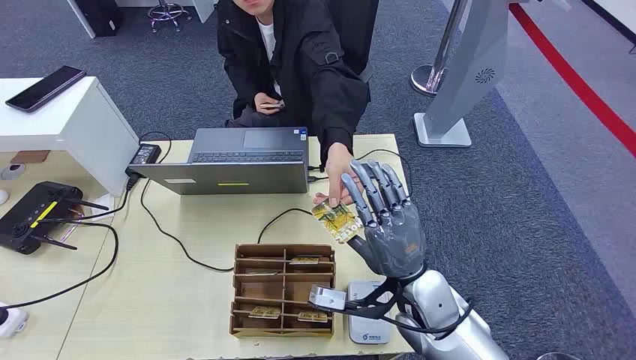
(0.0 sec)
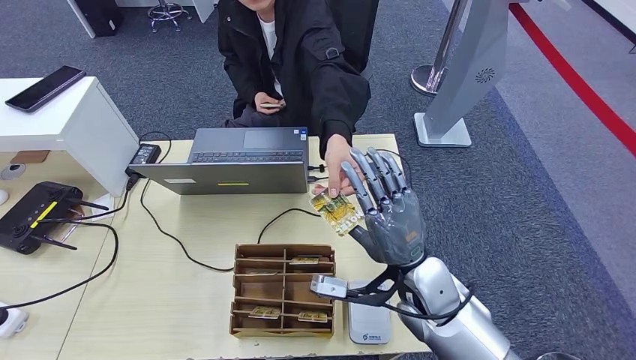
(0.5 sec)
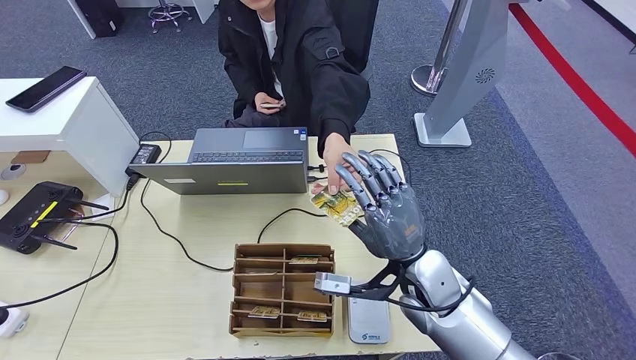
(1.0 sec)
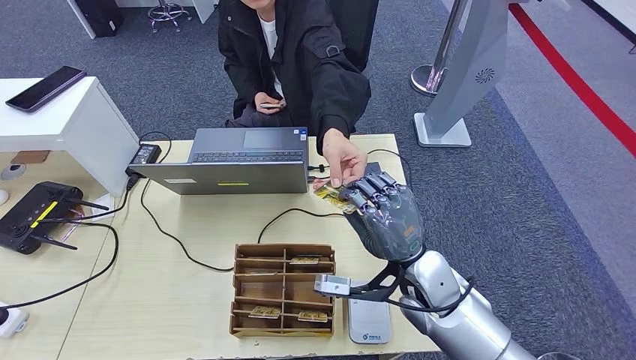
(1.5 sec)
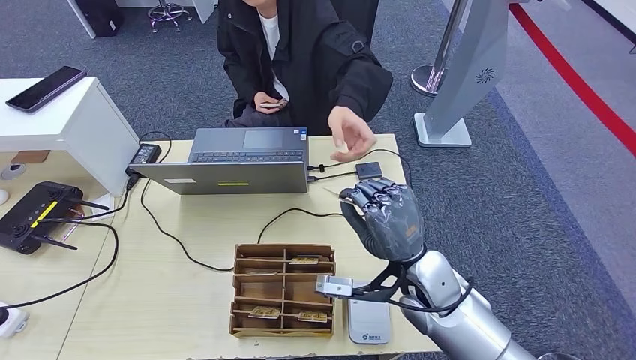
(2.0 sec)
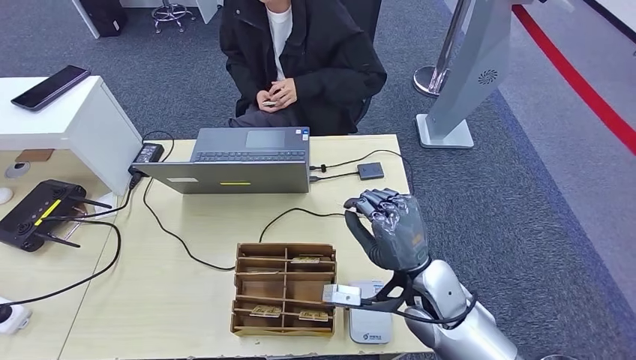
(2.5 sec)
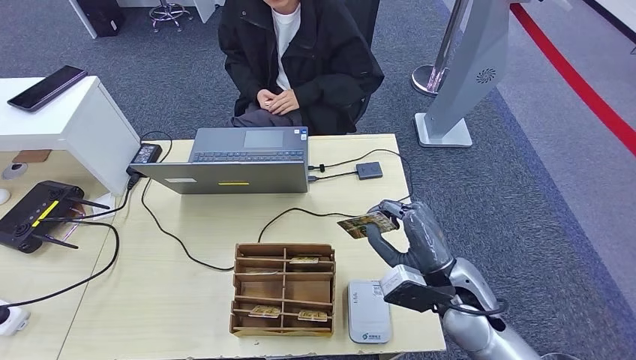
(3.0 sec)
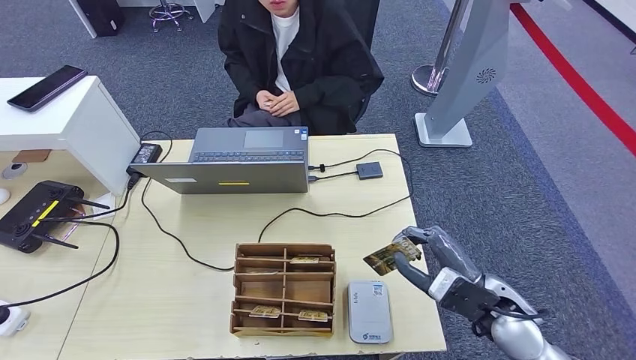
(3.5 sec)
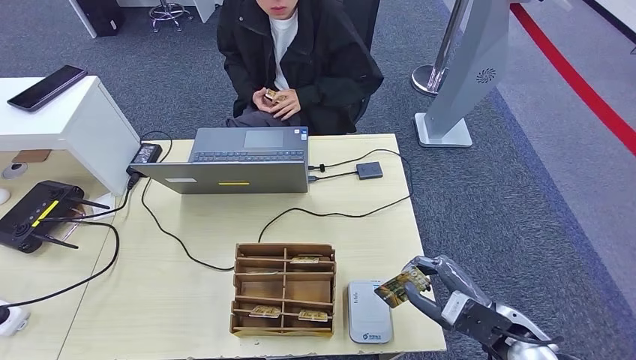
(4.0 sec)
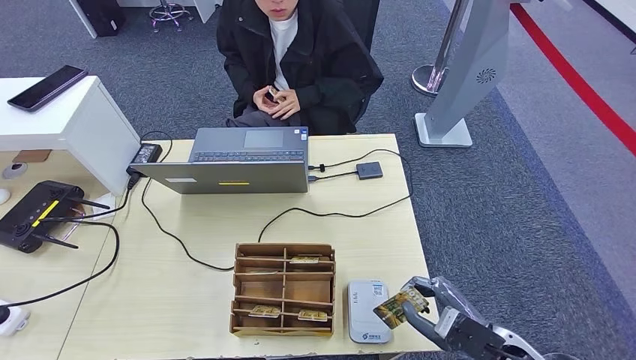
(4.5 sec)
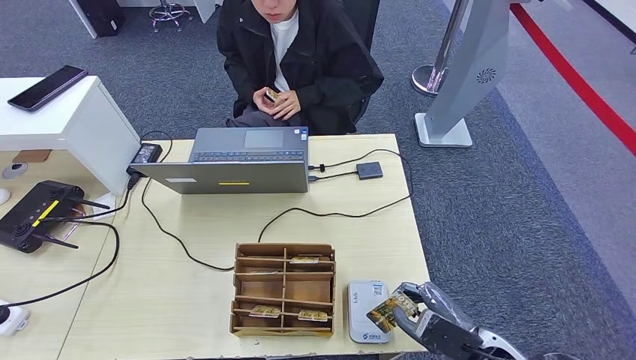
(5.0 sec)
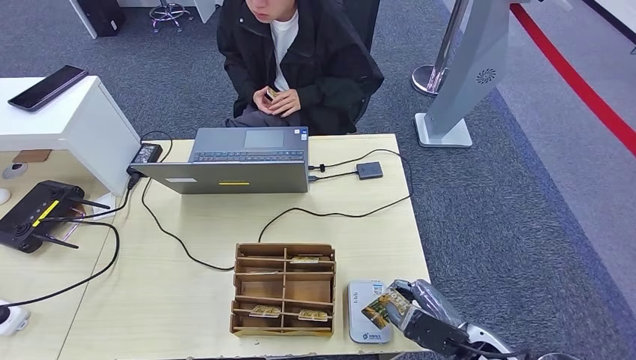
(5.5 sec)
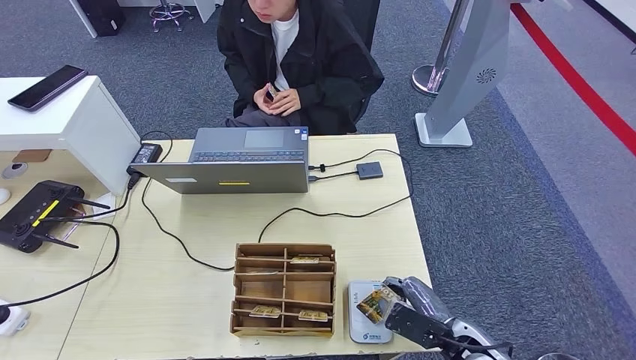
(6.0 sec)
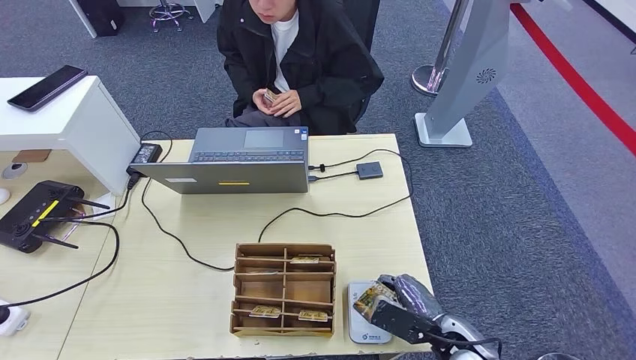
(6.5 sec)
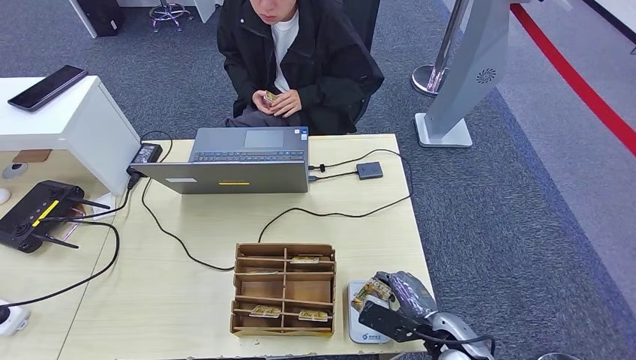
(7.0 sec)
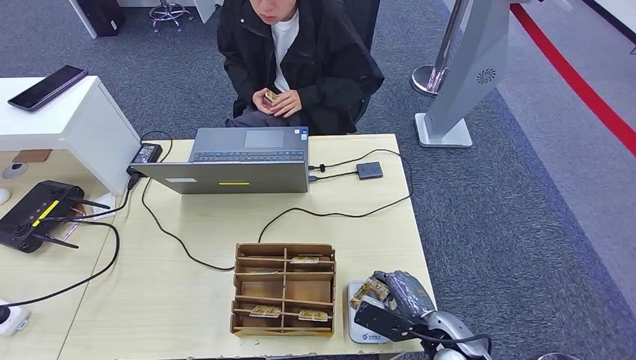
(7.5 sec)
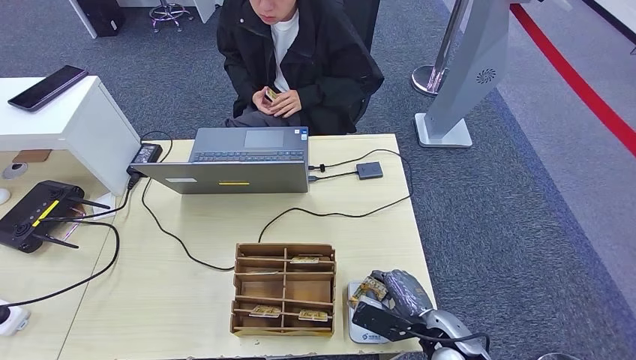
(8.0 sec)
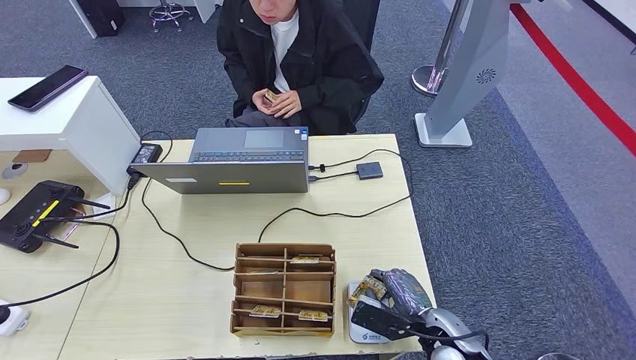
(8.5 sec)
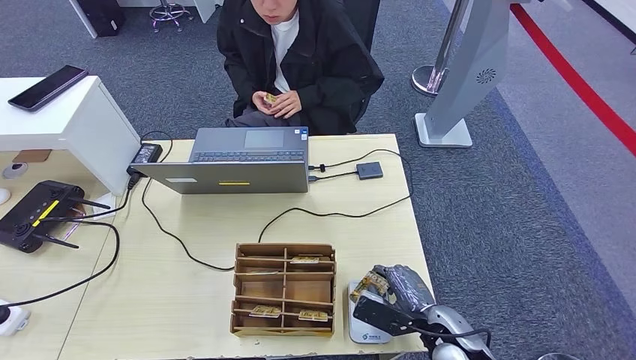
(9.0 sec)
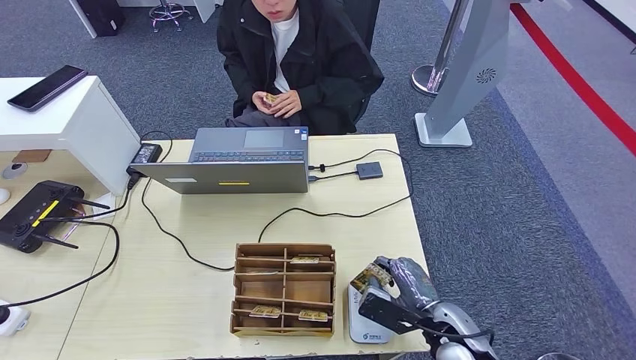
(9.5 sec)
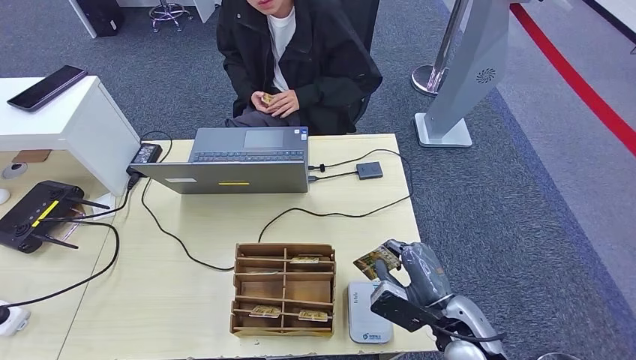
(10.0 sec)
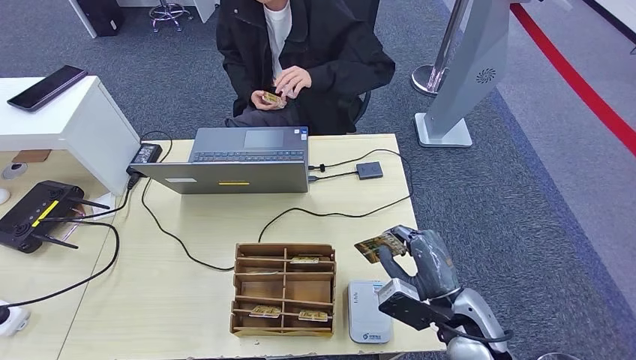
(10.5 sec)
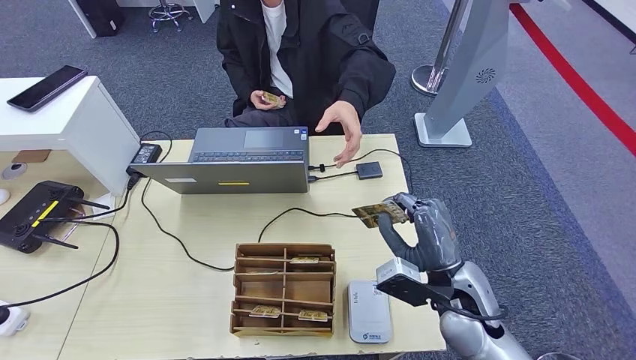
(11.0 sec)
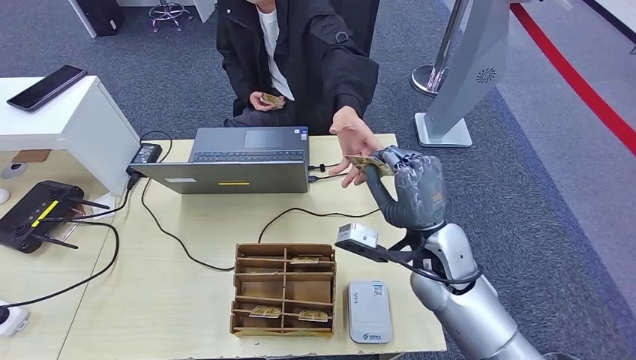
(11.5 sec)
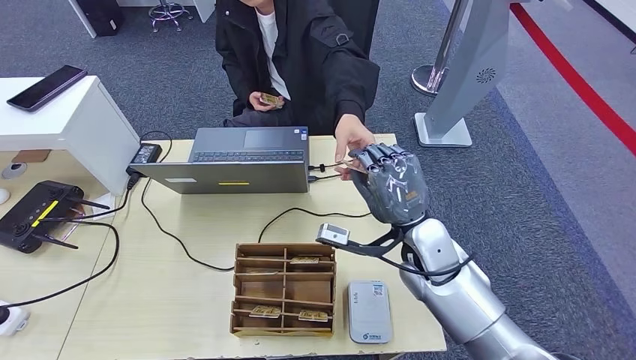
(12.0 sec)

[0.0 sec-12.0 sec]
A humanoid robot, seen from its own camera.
Step, 0.0 sec to 1.5 sec: Take the ID card from the person's hand.
Step, 3.0 sec to 10.5 sec: Place the ID card on the card reader.
2.0 sec to 4.0 sec: The left hand goes roughly 10 cm forward and to the right. Meanwhile the right hand moves to the right and backward, roughly 15 cm.
4.0 sec to 6.0 sec: The right hand moves downward, some 5 cm.
6.0 sec to 8.0 sec: The hands move only a little.
8.0 sec to 10.0 sec: The right hand shifts about 5 cm upward.
10.0 sec to 12.0 sec: The right hand moves forward, upward and to the left, roughly 15 cm.

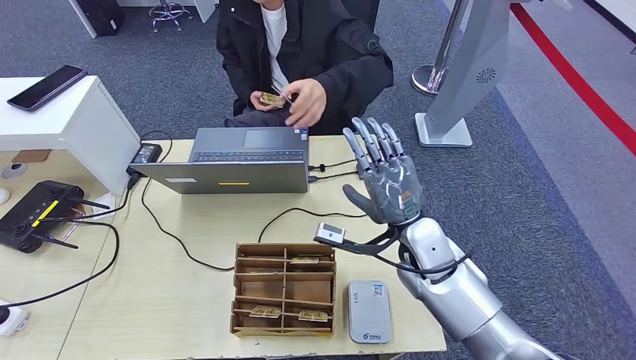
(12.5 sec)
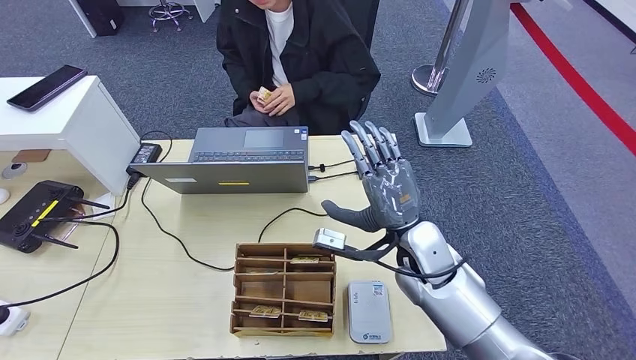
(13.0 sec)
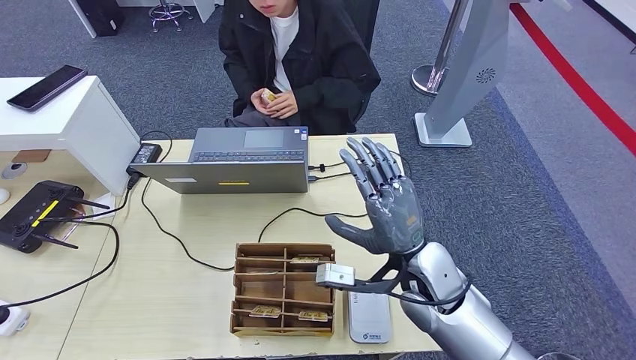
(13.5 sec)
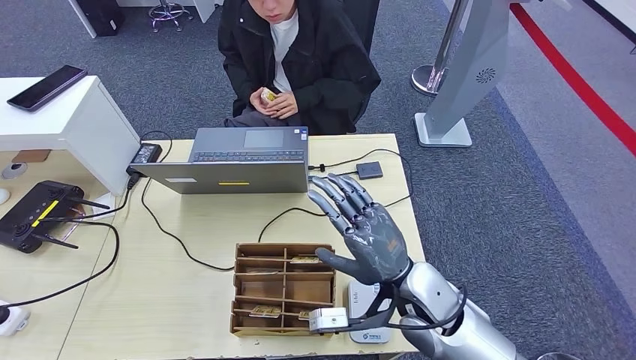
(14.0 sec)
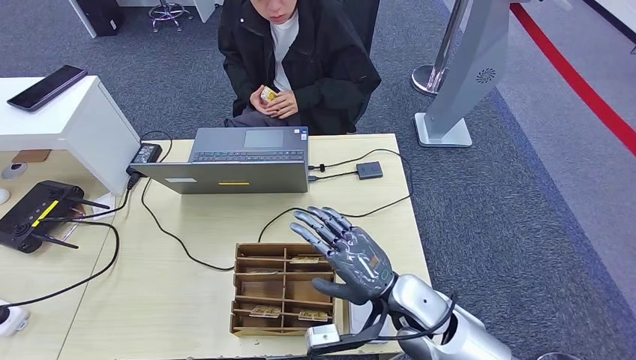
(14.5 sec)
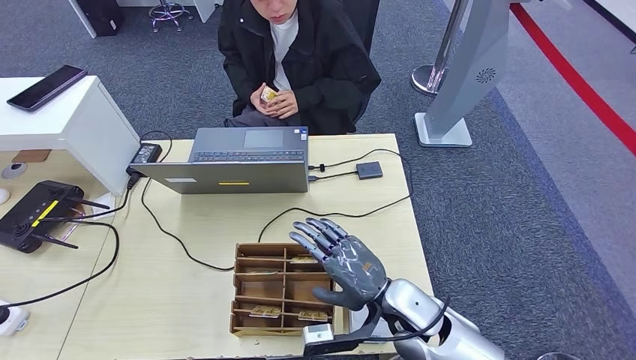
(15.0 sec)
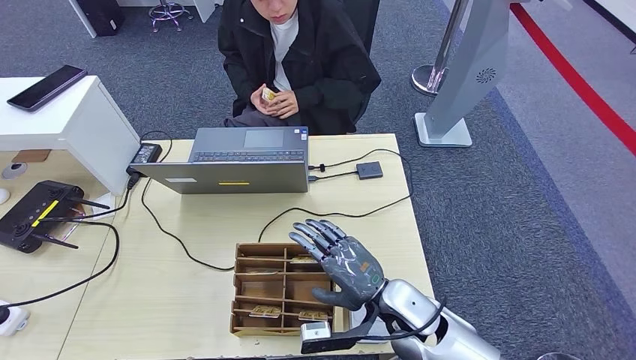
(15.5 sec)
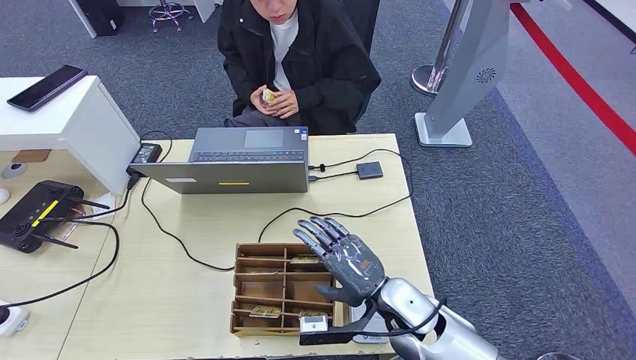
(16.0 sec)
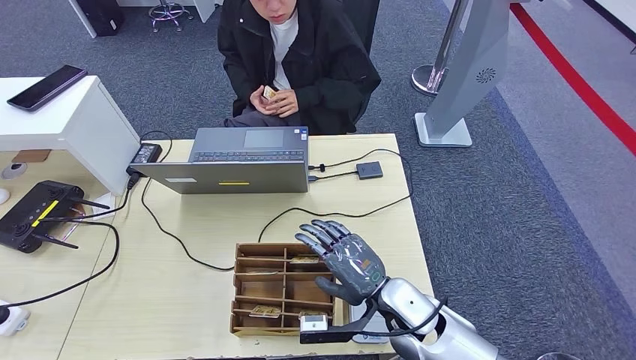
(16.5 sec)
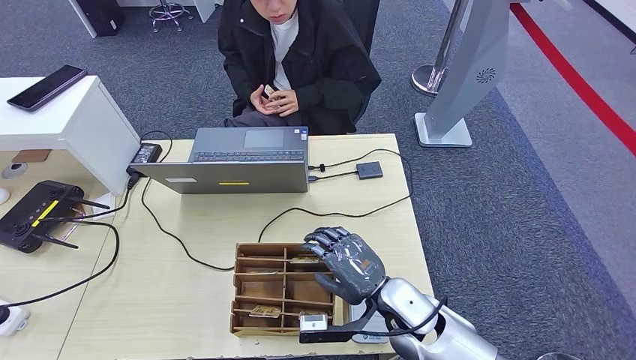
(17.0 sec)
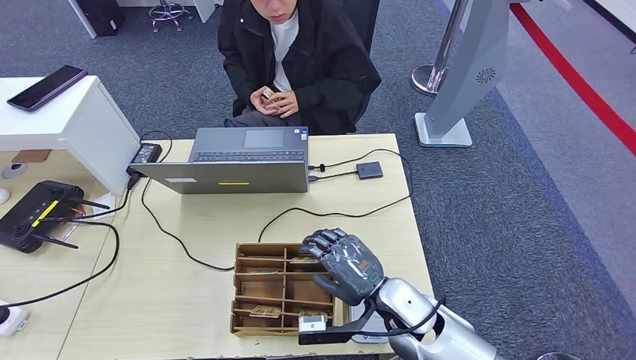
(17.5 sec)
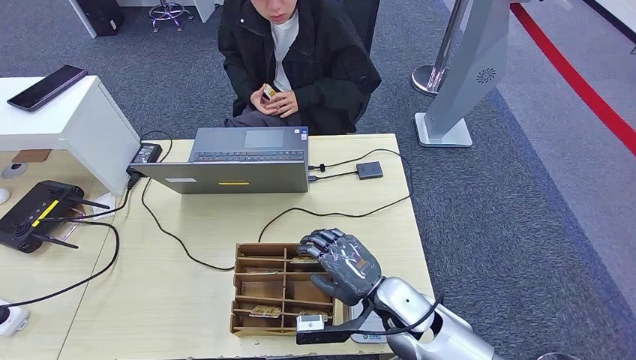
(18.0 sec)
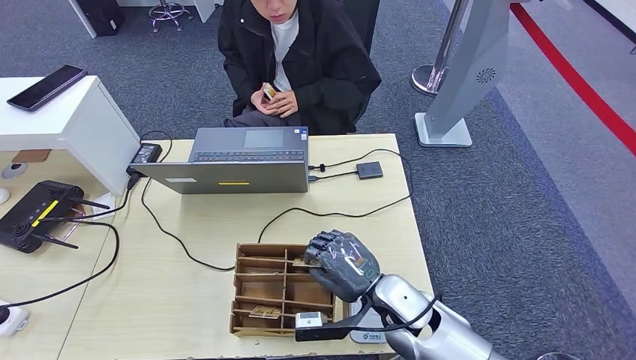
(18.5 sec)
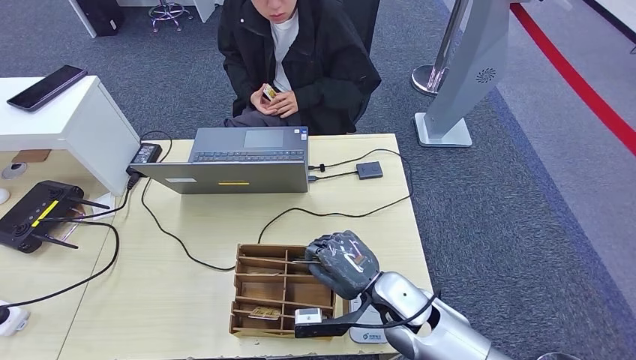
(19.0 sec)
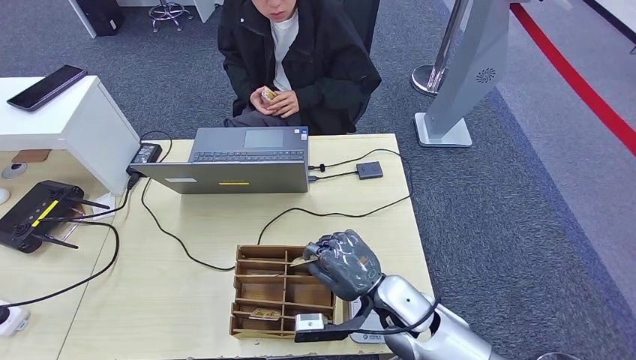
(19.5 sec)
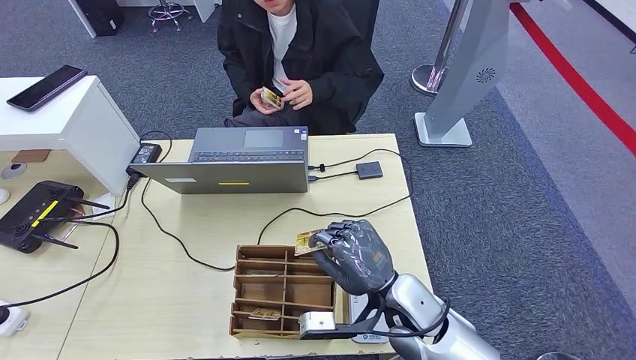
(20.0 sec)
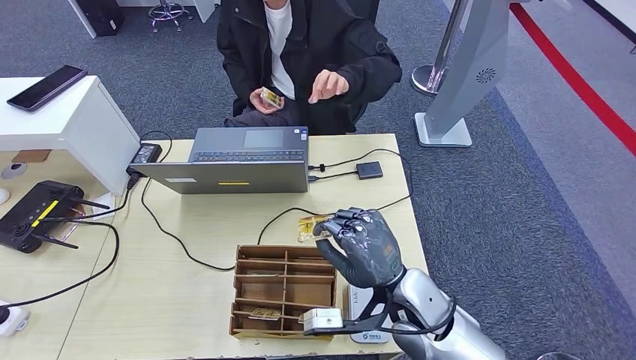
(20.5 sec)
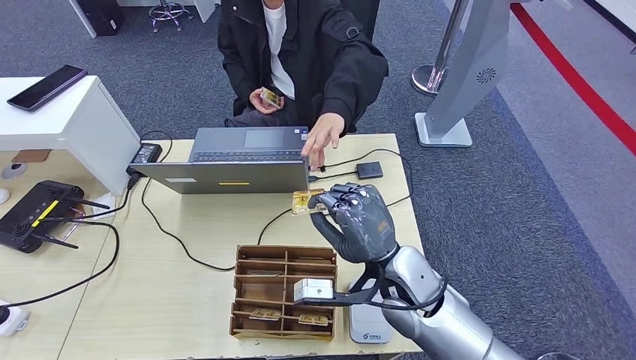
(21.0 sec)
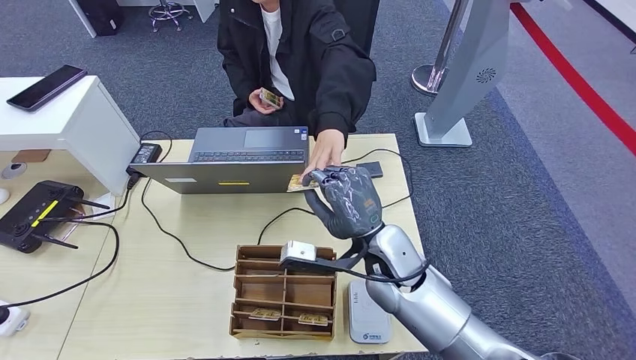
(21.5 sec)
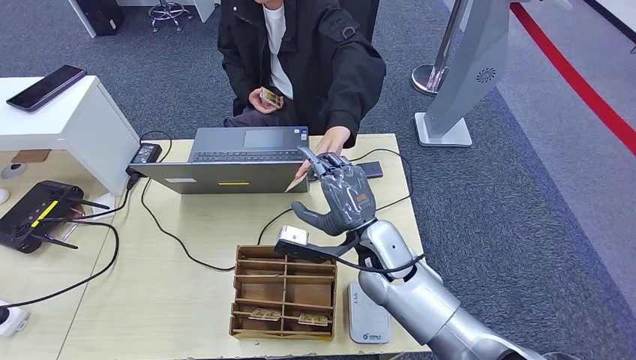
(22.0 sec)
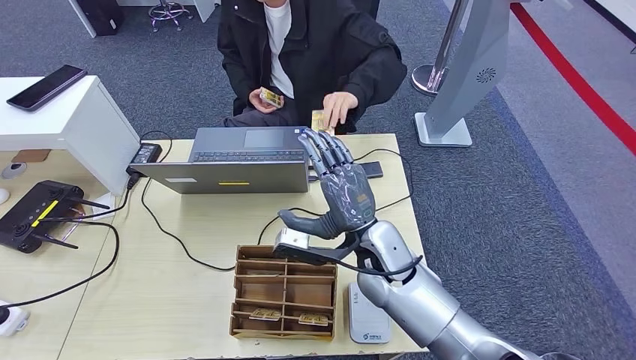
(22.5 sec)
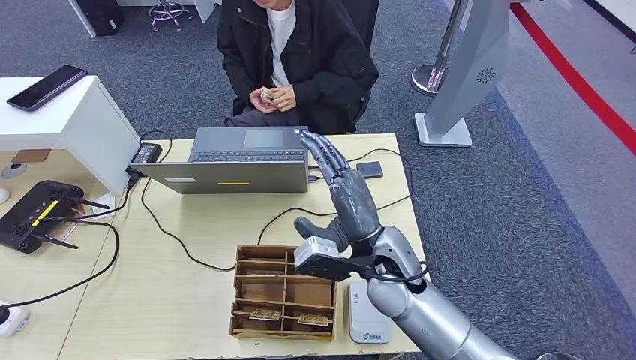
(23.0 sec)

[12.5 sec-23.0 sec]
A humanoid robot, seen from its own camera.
Step, 17.5 sec to 20.0 sec: Pick up the room key from the key card box.
Step, 21.0 sec to 23.0 sec: Hand the room key to the person.
12.5 sec to 14.5 sec: The right hand travels backward by roughly 10 cm.
14.5 sec to 16.5 sec: The hands move only a little.
16.5 sec to 19.0 sec: Neither hand changes place.
19.0 sec to 21.0 sec: The right hand shifts approximately 5 cm upward.
